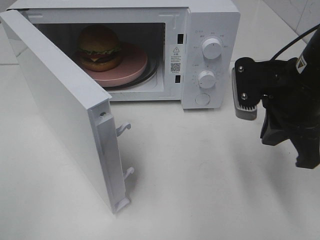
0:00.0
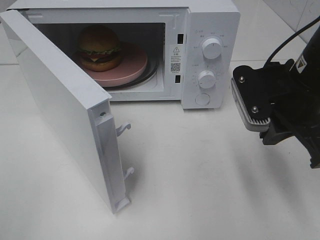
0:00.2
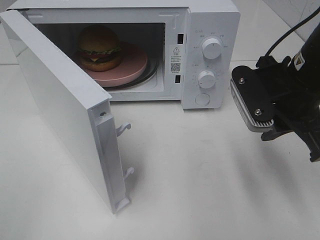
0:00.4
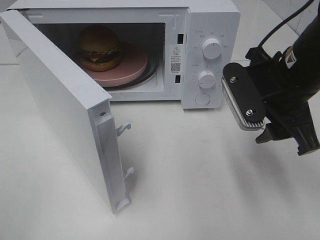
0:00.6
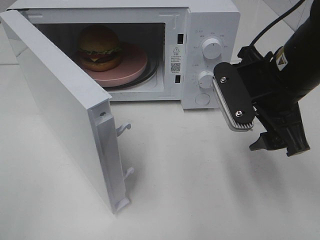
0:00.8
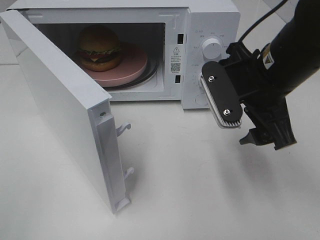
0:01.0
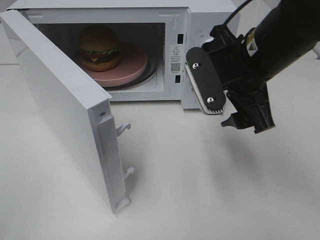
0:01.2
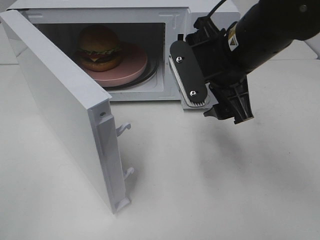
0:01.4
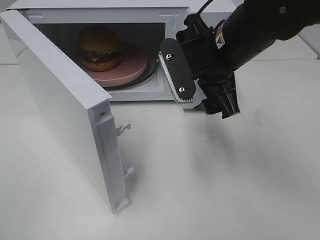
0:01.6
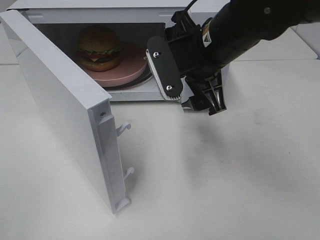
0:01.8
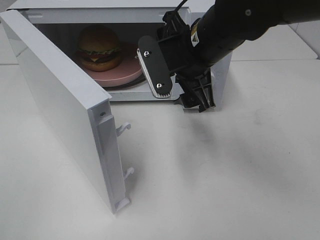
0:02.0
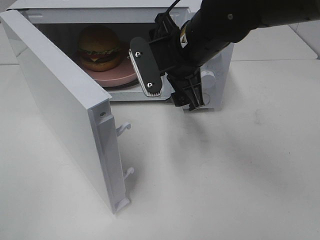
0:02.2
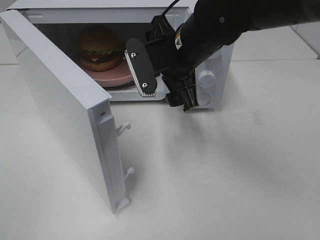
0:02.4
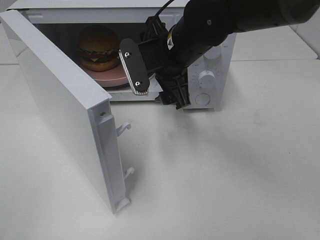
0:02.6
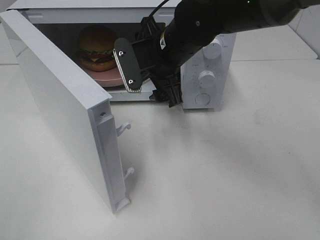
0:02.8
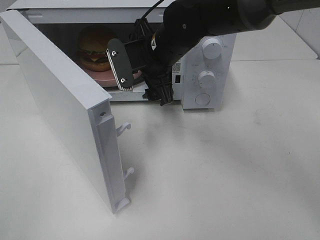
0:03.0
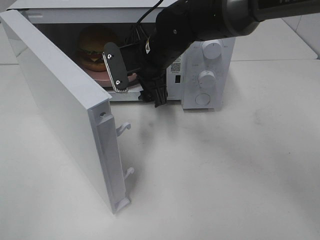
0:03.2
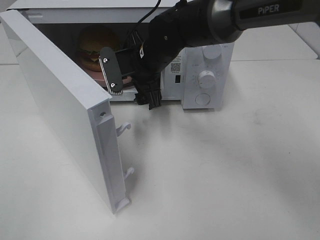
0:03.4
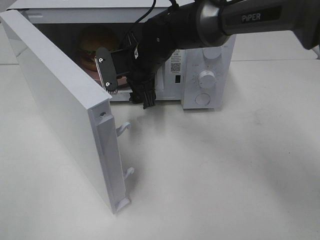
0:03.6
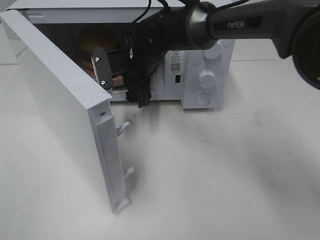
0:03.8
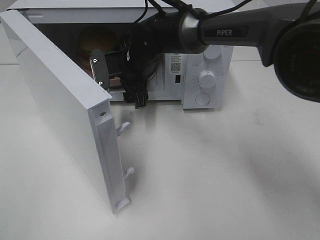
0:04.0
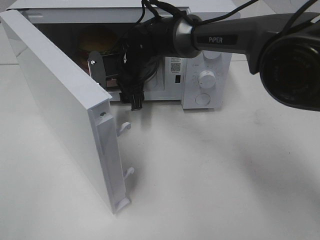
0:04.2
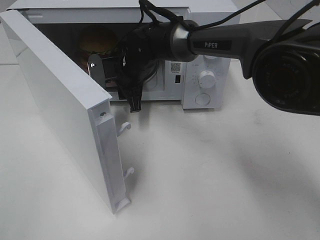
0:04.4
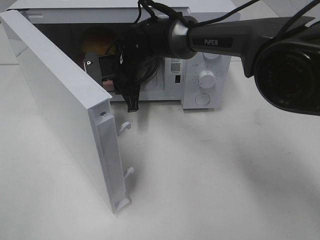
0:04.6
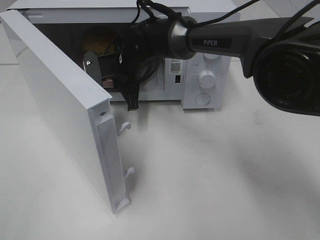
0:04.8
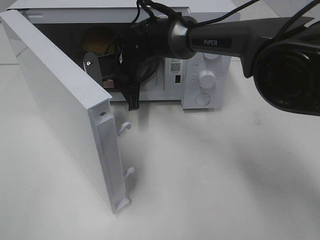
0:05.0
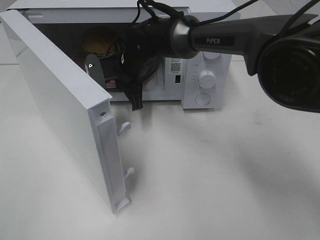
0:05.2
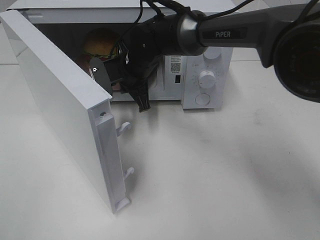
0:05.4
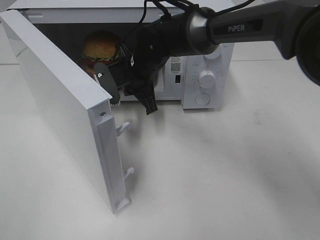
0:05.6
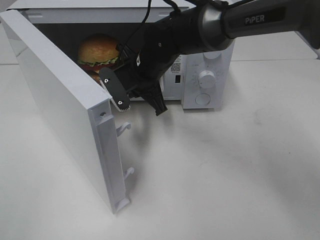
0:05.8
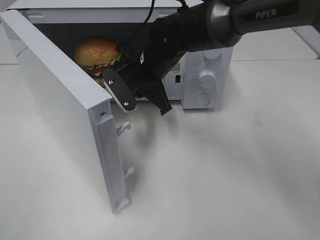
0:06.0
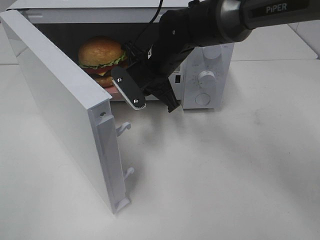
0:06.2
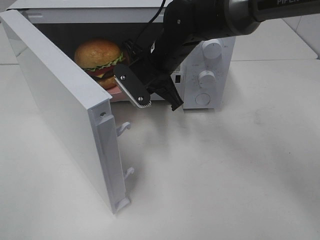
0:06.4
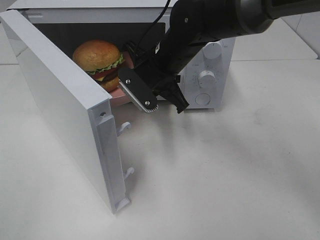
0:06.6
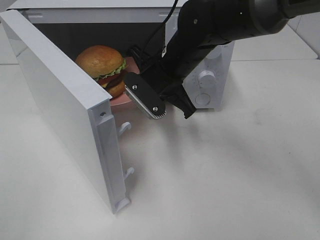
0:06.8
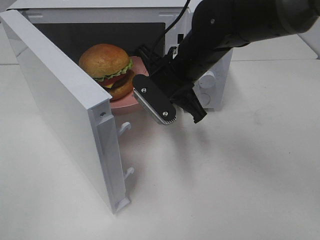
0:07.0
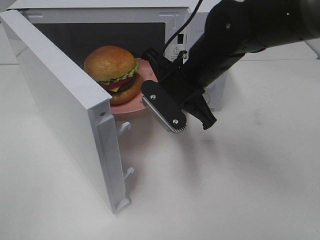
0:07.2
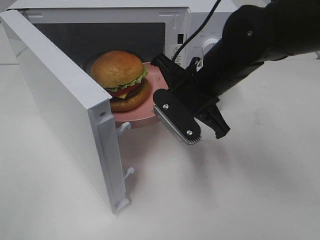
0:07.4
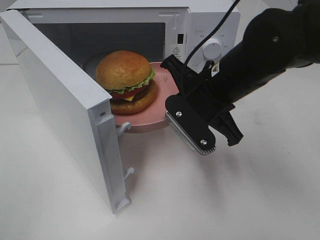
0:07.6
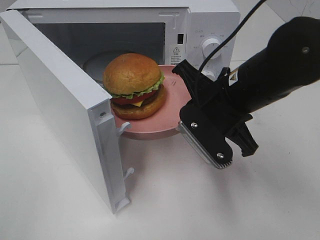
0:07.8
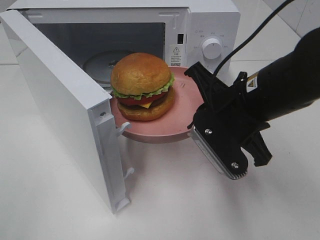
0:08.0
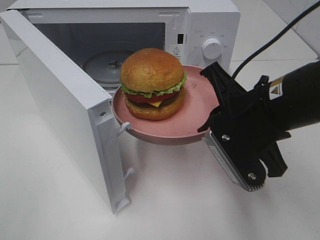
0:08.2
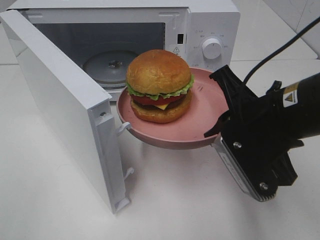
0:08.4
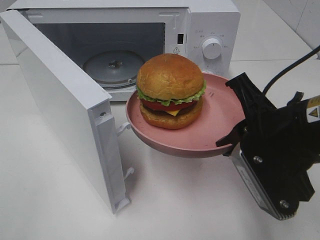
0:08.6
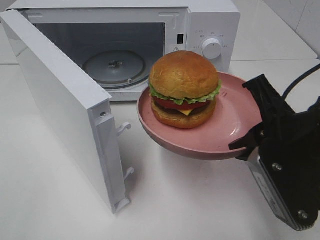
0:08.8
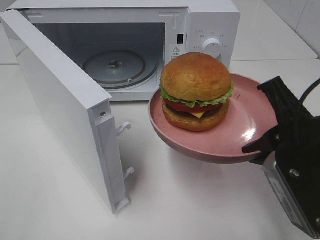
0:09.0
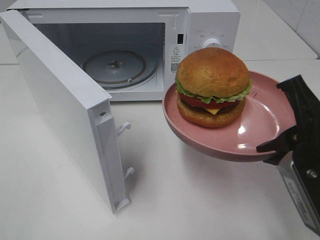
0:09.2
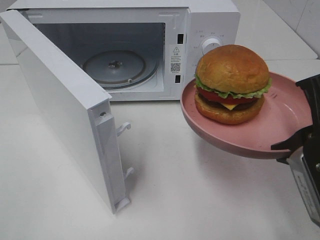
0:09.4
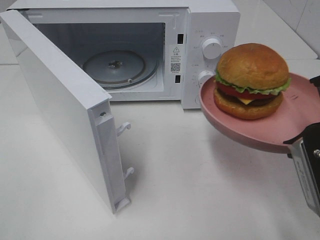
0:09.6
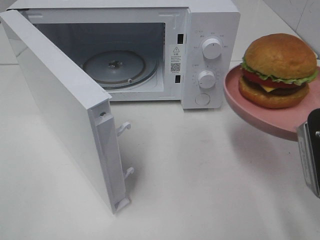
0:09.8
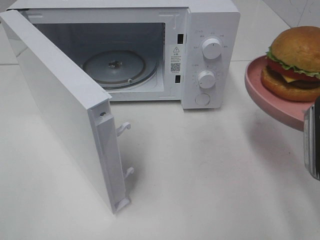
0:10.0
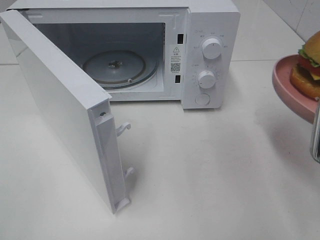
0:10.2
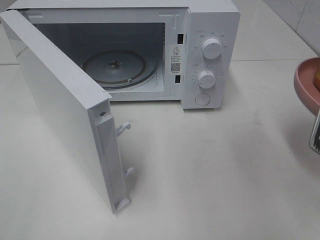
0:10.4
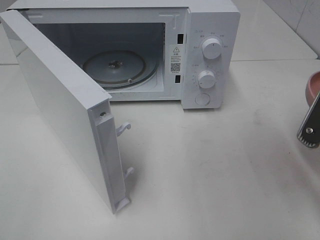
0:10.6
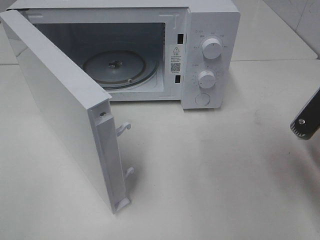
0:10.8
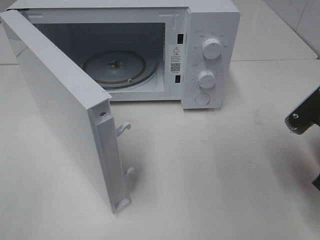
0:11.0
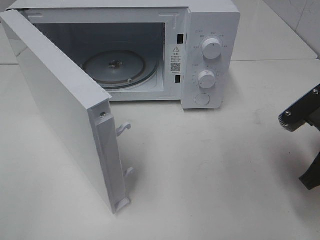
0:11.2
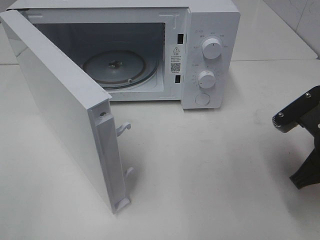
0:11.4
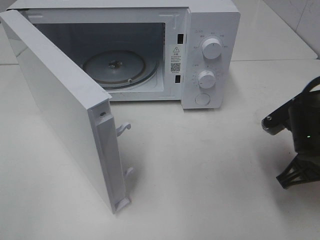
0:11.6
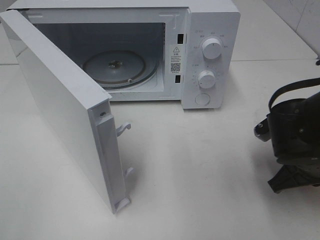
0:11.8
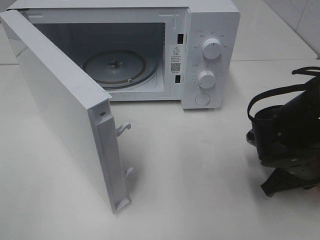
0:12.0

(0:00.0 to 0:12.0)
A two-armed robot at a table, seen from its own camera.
Task of the whole recording: Heat the burger.
Step, 0:00.0 - 0:04.6: Right hand: grab the plate with the hamburger.
0:00.0 - 0:01.6: The right gripper shifts approximately 10 cm to the left and forward, and opens its fingers.
0:01.6 - 0:03.0: The right gripper heads forward and to the left, covering some 10 cm.
0:03.0 - 0:04.4: The right gripper shifts approximately 10 cm downward, forward and to the left, and closes its fingers.
0:04.4 - 0:06.0: The right gripper changes place by approximately 5 cm, and closes.
0:06.0 - 0:07.6: The right gripper heads backward and to the right, covering roughly 15 cm.
0:07.6 - 0:09.0: The right gripper moves backward and to the right, roughly 15 cm.
0:09.0 - 0:10.4: The right gripper goes approximately 5 cm to the right.
0:10.4 - 0:12.0: The right gripper goes about 15 cm downward and forward.

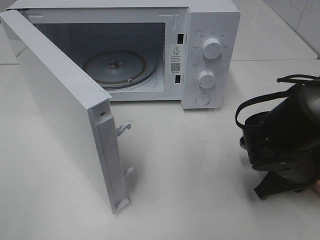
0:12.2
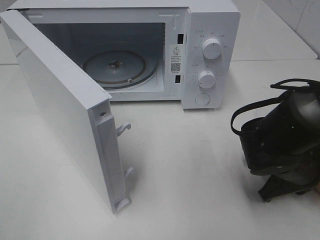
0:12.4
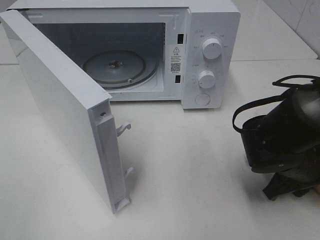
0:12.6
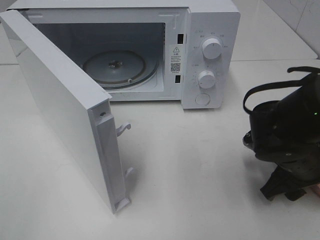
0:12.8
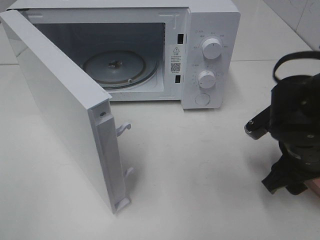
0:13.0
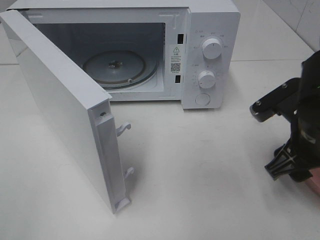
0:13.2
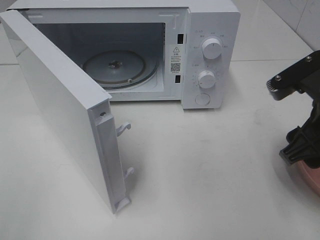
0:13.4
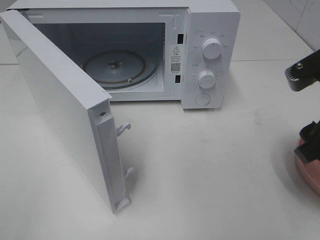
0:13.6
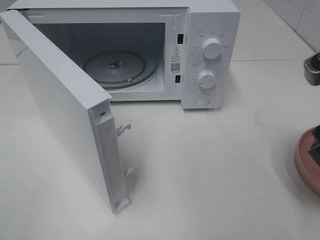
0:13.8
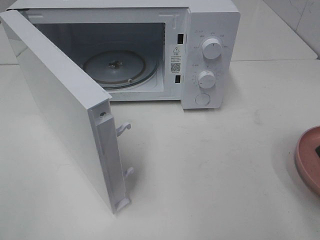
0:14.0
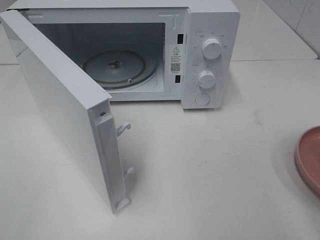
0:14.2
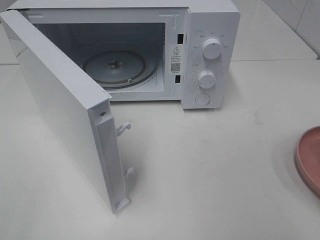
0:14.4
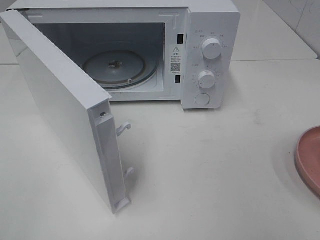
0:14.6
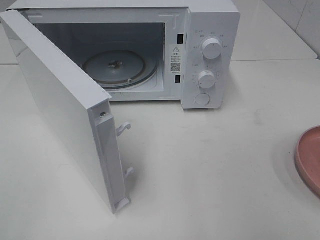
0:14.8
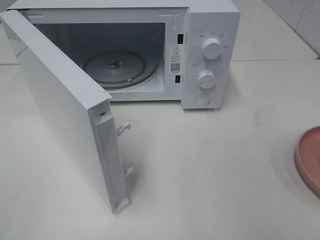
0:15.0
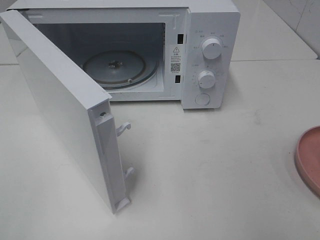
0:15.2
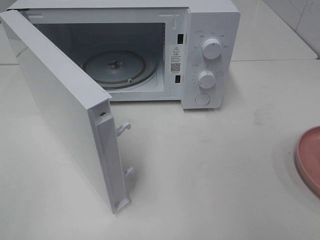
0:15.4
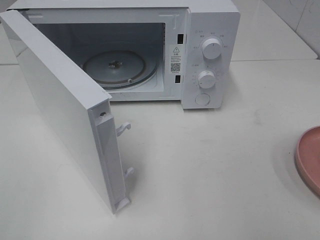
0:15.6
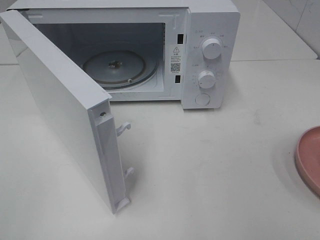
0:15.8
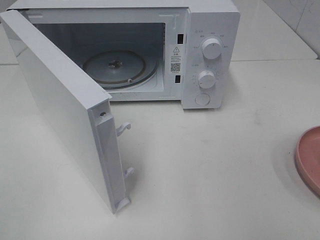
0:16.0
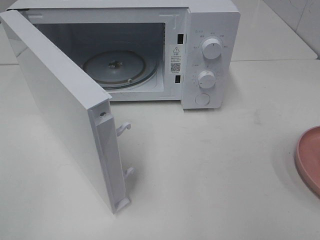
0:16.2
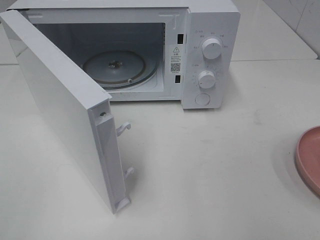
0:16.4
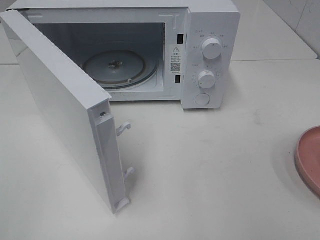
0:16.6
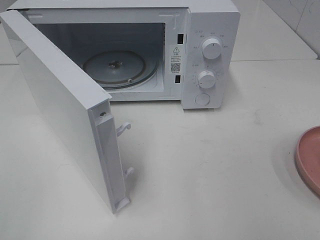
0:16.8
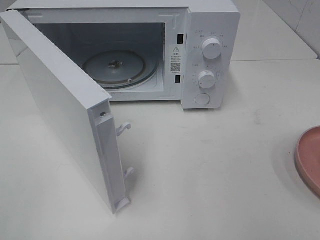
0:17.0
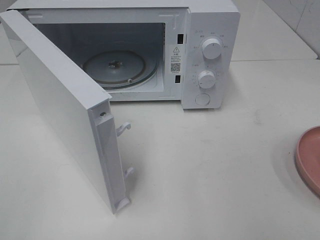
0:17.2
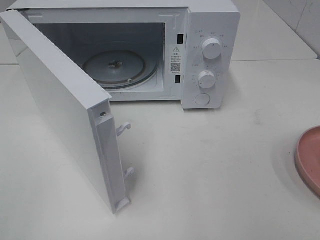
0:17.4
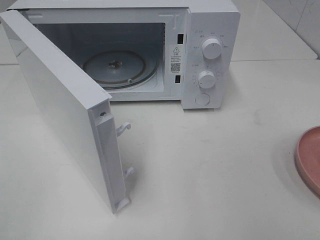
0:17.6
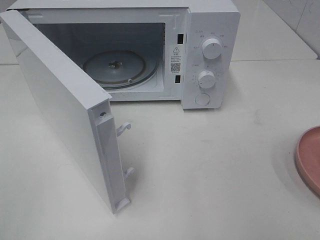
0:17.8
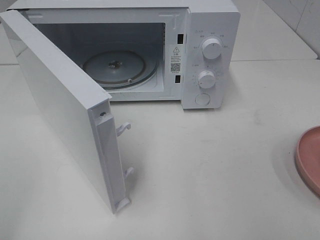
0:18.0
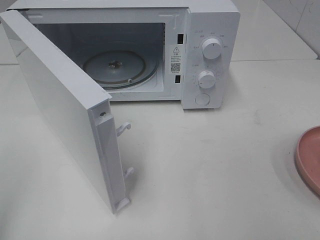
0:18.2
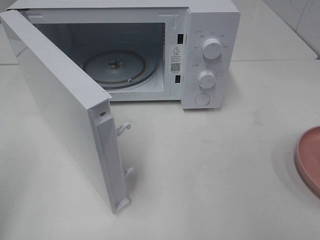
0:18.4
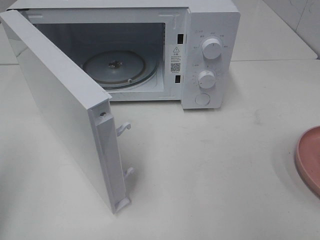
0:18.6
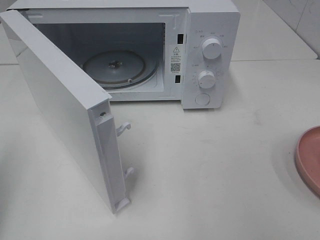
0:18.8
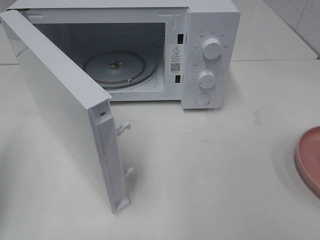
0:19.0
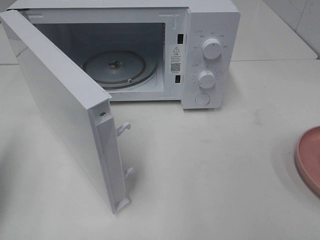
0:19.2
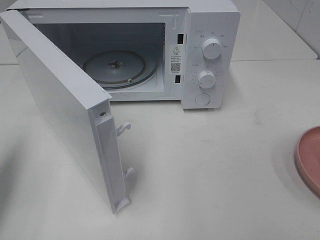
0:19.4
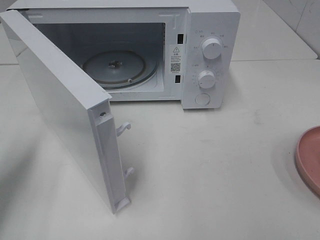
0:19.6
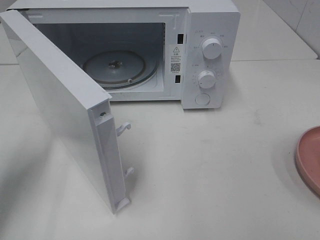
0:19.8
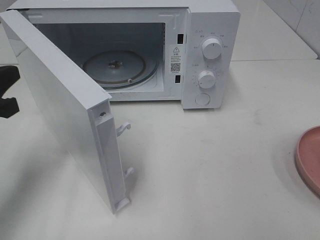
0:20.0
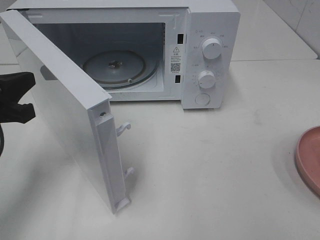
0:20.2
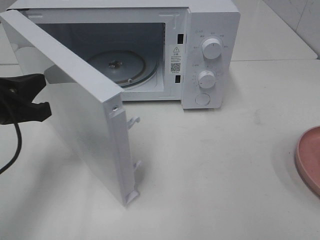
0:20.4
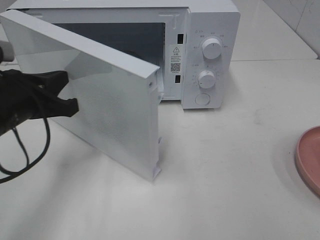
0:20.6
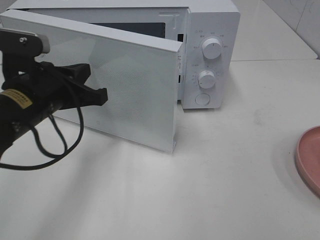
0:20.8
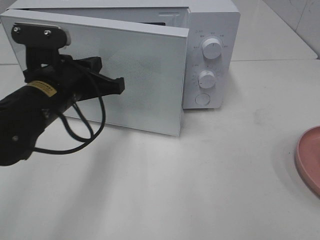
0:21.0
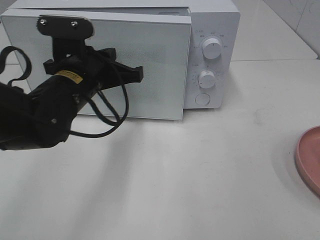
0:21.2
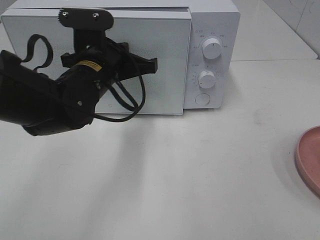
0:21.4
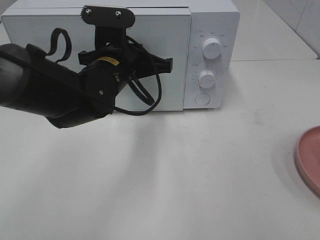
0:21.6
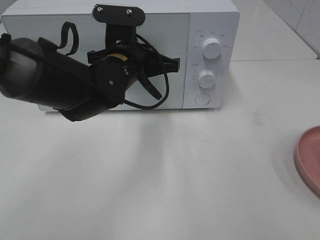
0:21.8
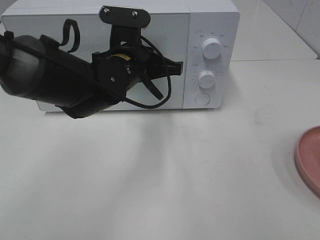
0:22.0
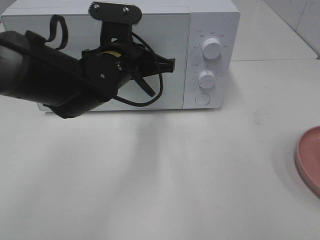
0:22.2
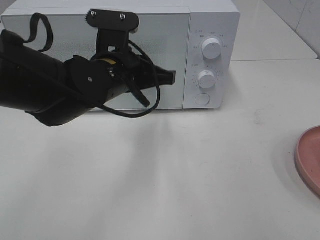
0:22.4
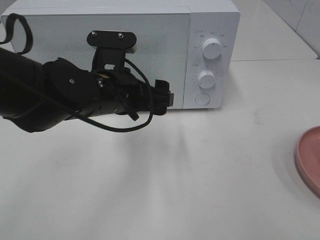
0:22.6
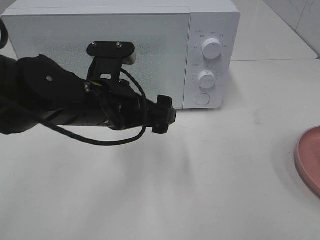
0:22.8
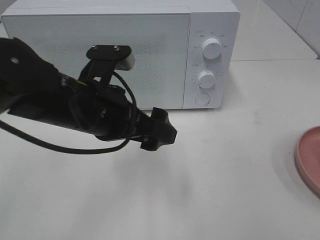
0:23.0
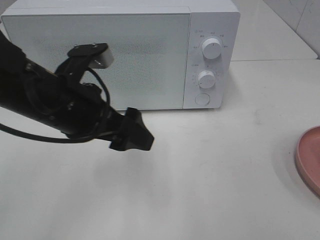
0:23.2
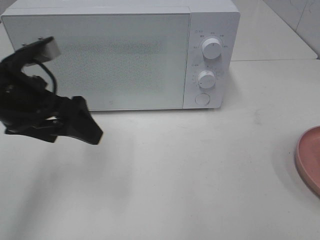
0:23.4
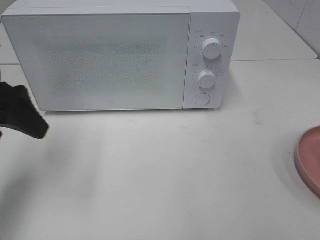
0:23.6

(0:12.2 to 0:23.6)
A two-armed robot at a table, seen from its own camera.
Task of the whole recording: Heat the burger.
Step, 0:13.2 - 0:22.8: Left hand: close the microwave door.
0:12.2 - 0:13.6: The right gripper travels upward by some 15 cm, and opens up.
0:13.6 - 0:15.0: The right gripper travels backward and to the right by some 15 cm.
0:16.4 - 0:17.8: Both grippers stay put.
0:17.8 - 0:19.4: The left gripper shifts roughly 15 cm forward, and closes.
0:19.4 - 0:20.8: The left gripper shifts roughly 20 cm to the right and forward.
0:20.8 - 0:22.2: The left gripper goes approximately 10 cm to the right and forward.
0:22.2 - 0:23.6: The left gripper is displaced to the left and backward by some 20 cm, and opens up.
